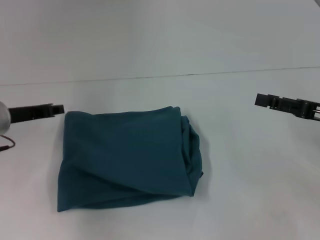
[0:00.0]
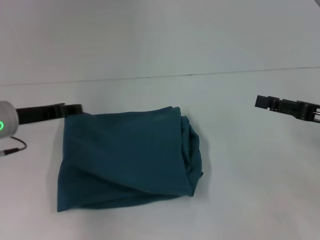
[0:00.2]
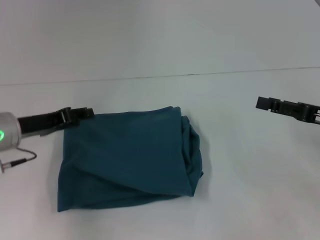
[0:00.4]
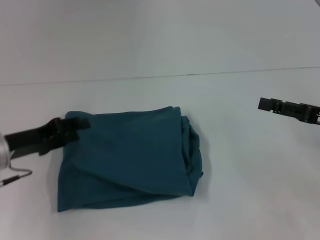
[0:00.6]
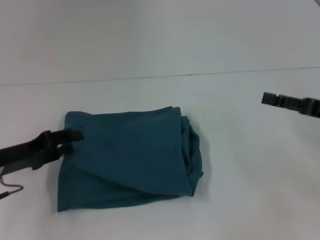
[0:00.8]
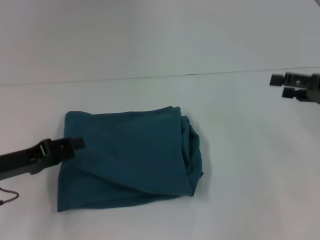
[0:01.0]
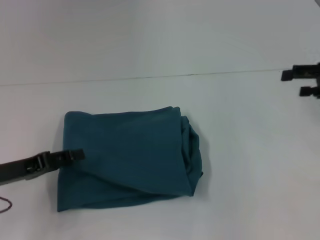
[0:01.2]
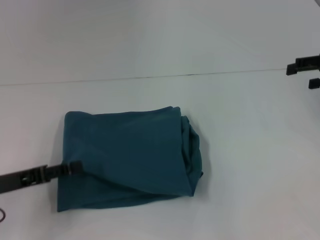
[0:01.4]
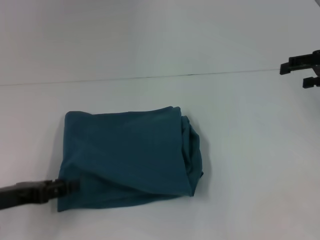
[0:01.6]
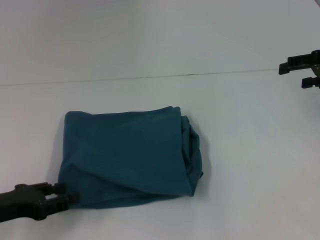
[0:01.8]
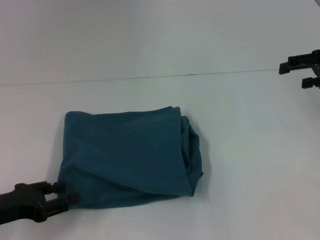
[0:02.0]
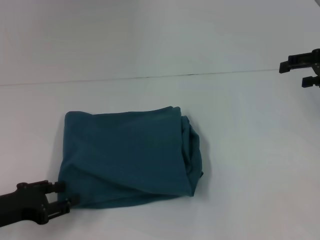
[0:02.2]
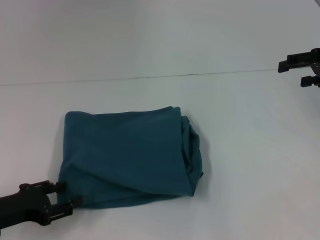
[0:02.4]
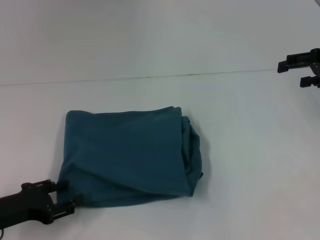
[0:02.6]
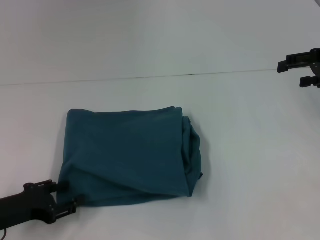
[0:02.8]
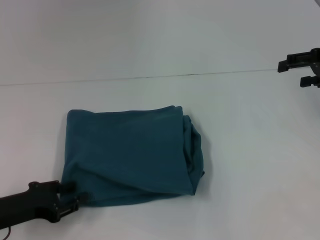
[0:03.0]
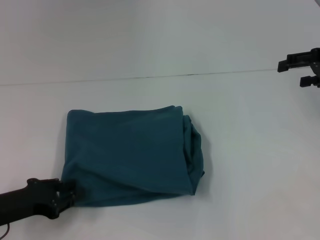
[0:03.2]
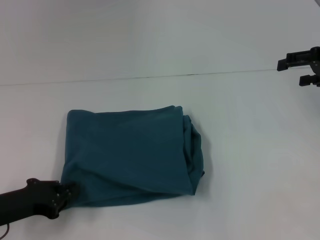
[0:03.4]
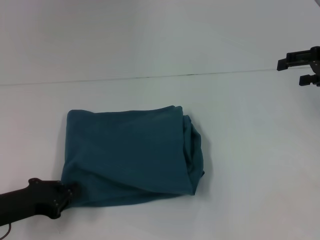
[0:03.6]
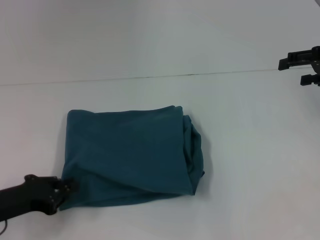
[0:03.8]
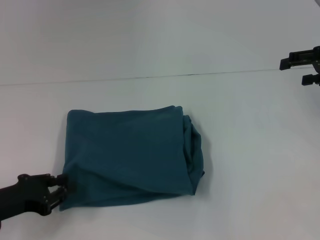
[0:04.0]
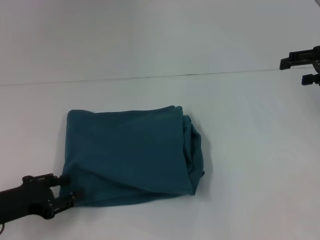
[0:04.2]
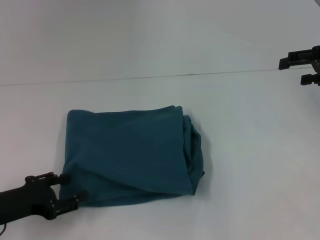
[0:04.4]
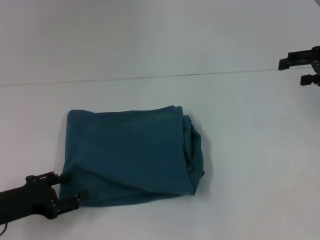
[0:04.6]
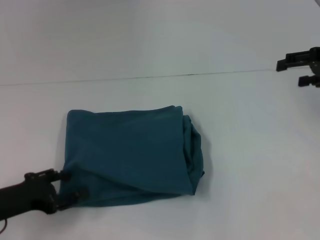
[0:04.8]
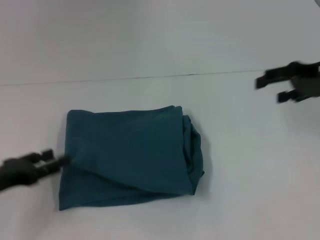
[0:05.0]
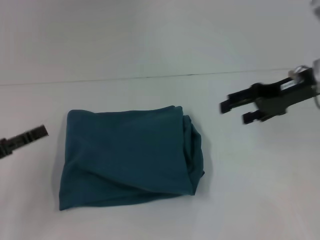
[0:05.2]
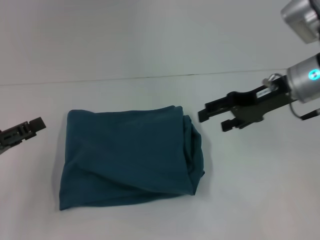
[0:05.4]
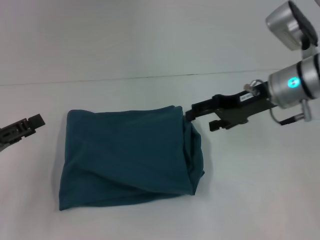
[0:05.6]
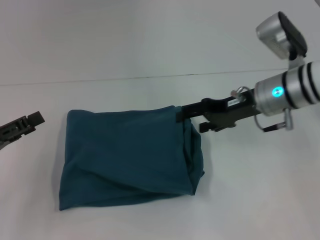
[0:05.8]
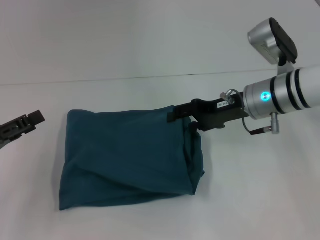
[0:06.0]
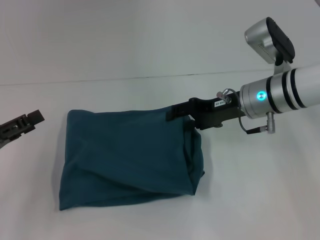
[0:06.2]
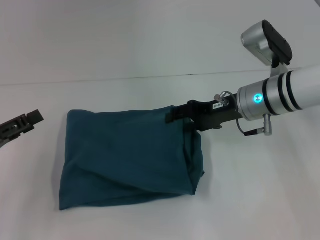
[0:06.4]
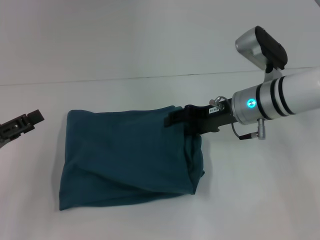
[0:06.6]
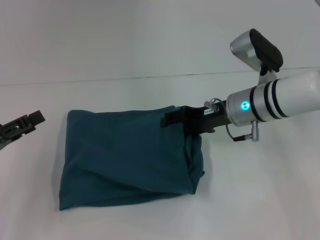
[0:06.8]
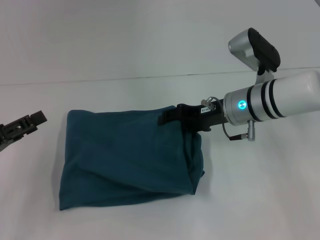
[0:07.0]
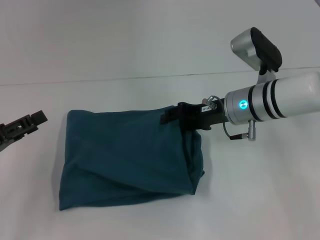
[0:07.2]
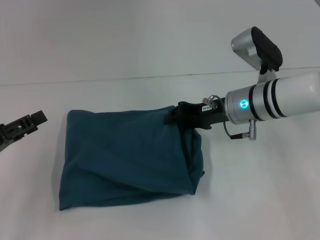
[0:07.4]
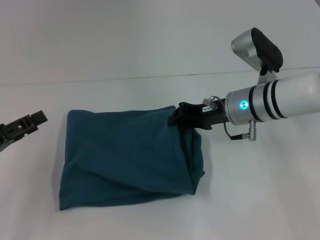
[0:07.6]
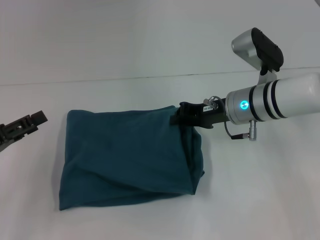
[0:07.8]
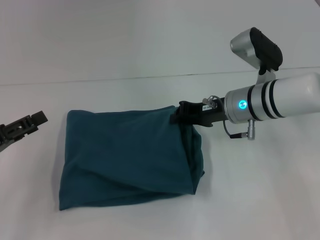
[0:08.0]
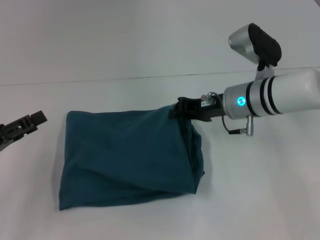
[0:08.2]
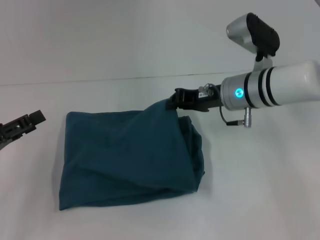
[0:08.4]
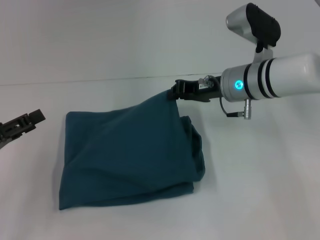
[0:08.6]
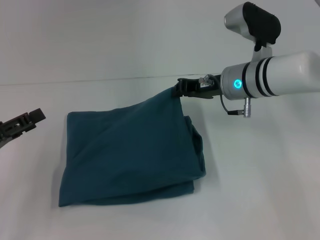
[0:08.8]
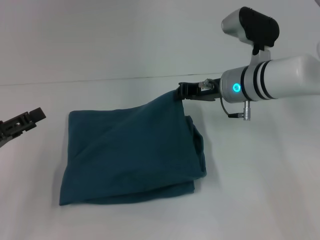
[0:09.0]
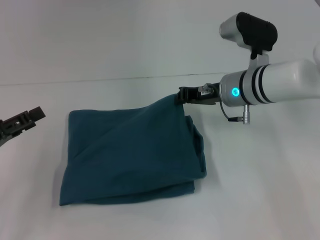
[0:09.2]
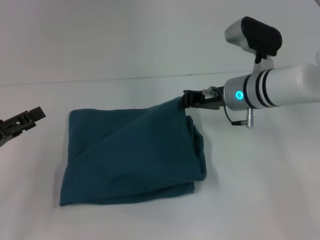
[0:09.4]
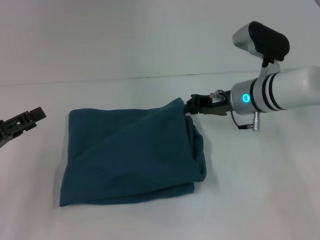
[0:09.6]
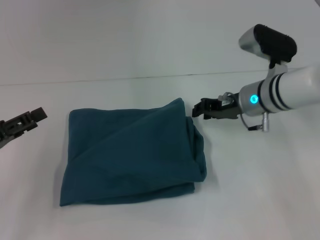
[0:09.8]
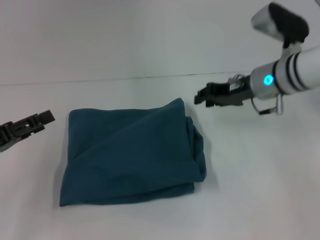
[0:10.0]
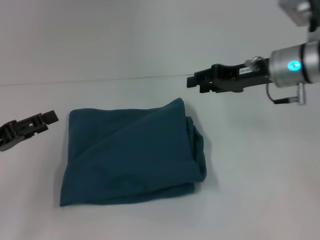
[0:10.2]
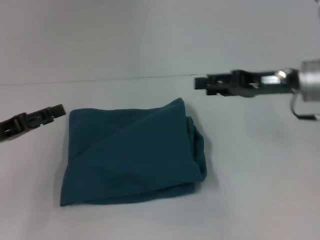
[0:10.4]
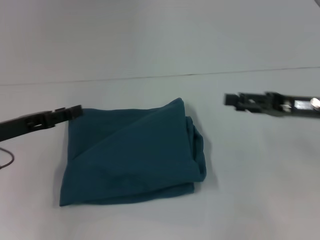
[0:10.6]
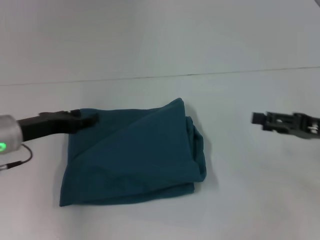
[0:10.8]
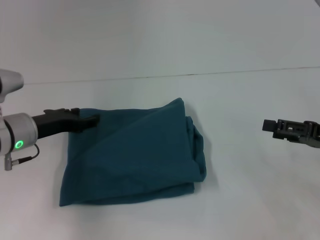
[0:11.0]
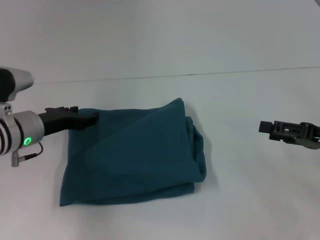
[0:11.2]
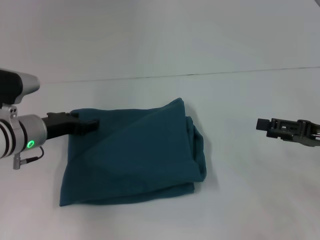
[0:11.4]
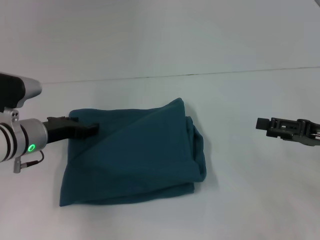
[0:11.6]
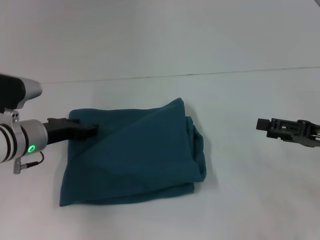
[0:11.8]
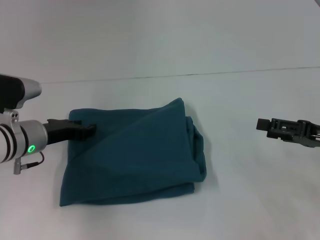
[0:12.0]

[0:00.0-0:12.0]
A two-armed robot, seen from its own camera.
0:00.0 to 0:01.6: The right gripper heads forward and upward, covering approximately 10 cm, while the left gripper shifts some 10 cm backward, and opens.
0:03.0 to 0:04.4: The left gripper closes and opens again.
0:04.4 to 0:06.0: The right gripper goes approximately 20 cm to the left and downward. Meanwhile the left gripper moves upward, about 5 cm.
0:06.0 to 0:07.6: The right gripper closes up.
0:07.6 to 0:09.0: The grippers move only a little.
0:09.0 to 0:10.4: The right gripper is displaced to the right and backward by roughly 10 cm, and opens.
0:10.4 to 0:12.0: The left gripper is displaced to the right and forward by approximately 10 cm, while the right gripper goes some 15 cm to the right, backward and downward.

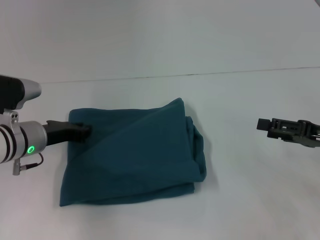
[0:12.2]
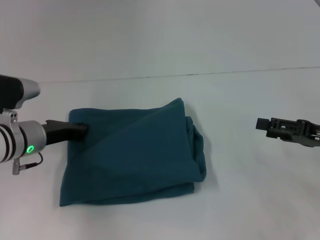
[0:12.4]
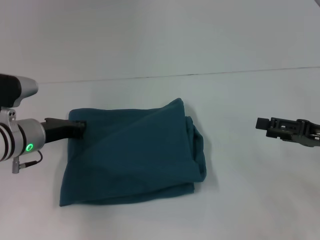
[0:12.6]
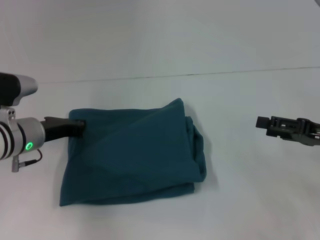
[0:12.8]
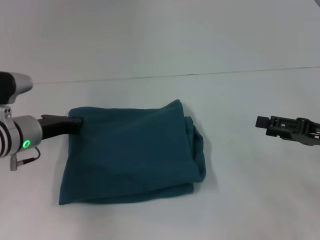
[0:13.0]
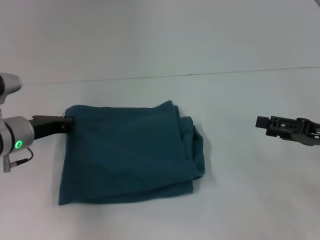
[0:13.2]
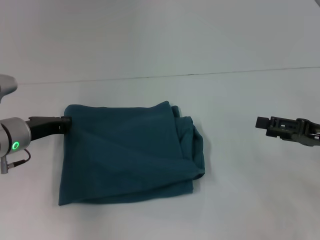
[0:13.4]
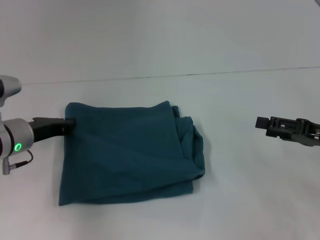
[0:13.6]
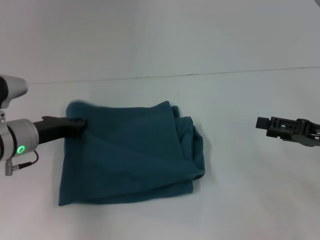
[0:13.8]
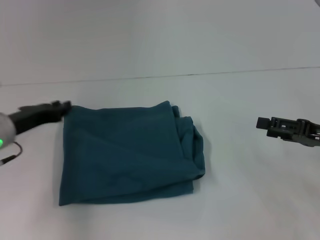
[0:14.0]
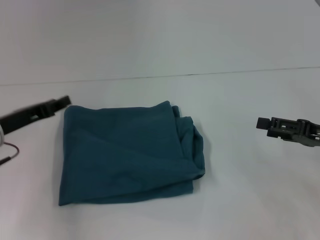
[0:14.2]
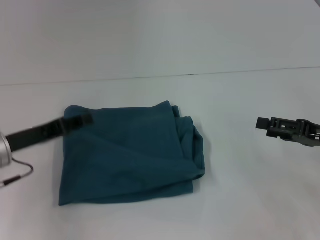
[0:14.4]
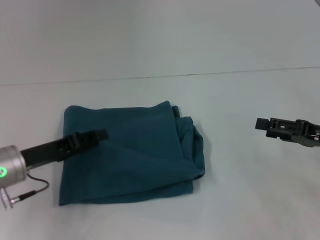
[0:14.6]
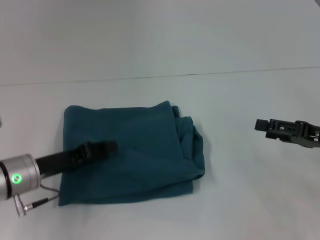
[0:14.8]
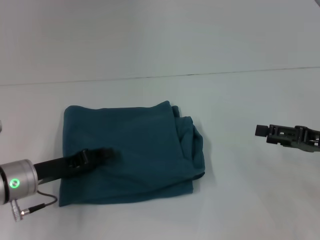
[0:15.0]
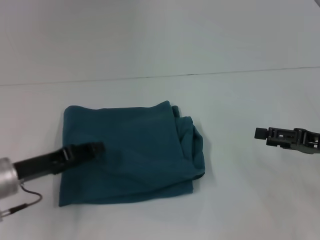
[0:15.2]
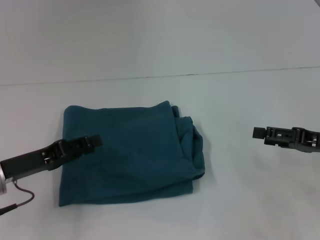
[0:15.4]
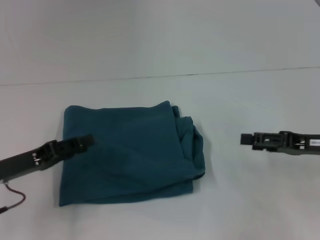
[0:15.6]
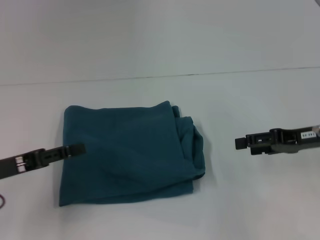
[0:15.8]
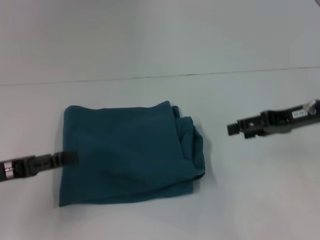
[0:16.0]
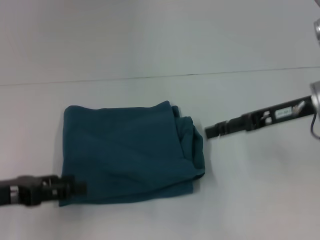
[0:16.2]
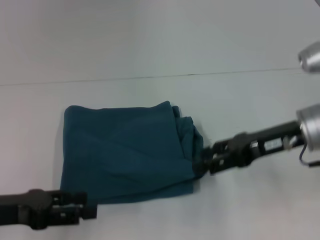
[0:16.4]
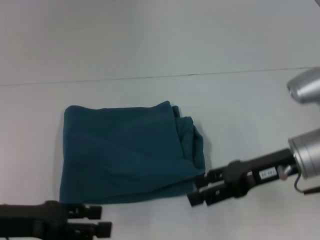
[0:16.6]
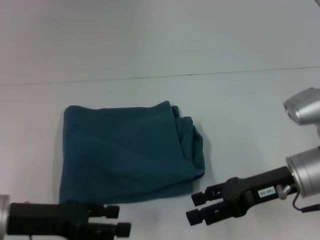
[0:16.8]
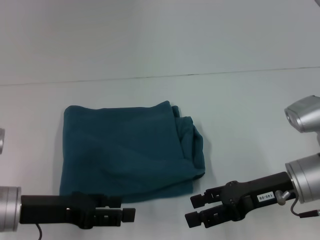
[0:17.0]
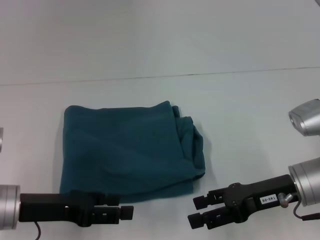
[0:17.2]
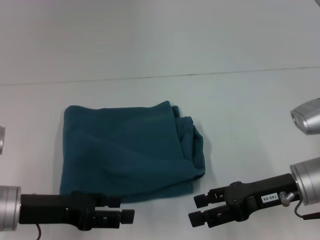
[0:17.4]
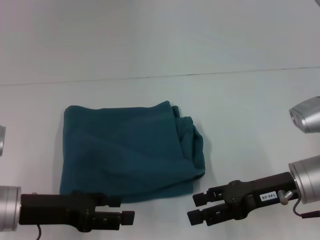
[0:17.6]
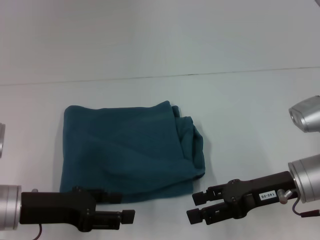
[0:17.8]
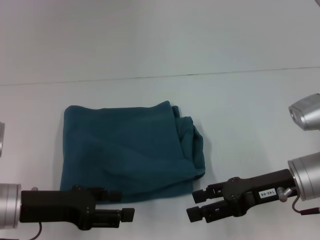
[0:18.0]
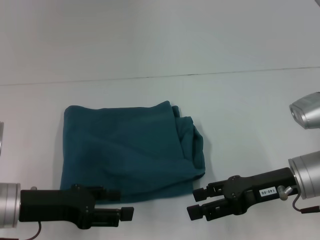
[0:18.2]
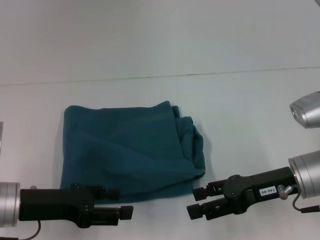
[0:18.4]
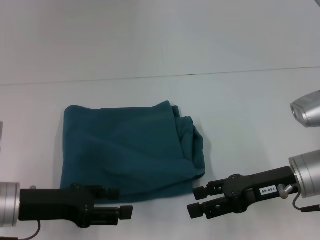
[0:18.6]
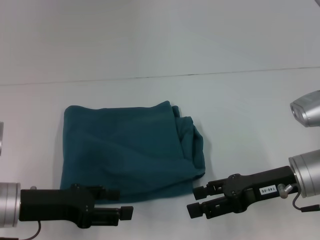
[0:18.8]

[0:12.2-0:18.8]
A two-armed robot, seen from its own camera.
0:12.2 to 0:13.8: The left gripper closes its fingers.
0:13.8 to 0:15.4: The left gripper goes roughly 10 cm backward, and opens.
0:15.4 to 0:17.2: The right gripper is displaced to the left by approximately 10 cm.
0:17.2 to 0:18.8: There are only small adjustments of the grippers.

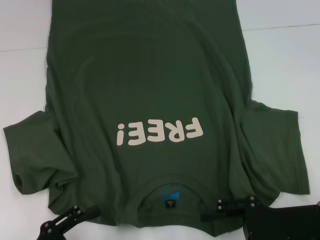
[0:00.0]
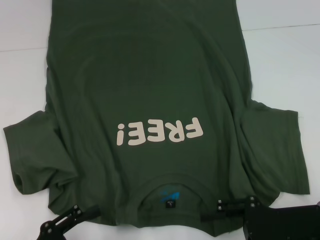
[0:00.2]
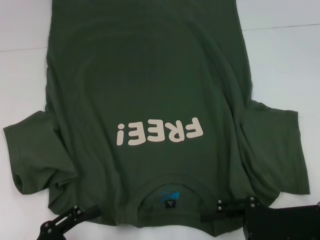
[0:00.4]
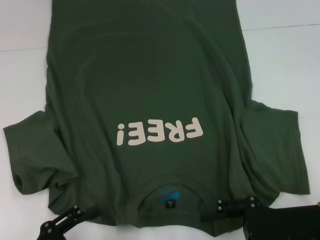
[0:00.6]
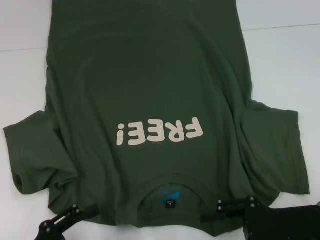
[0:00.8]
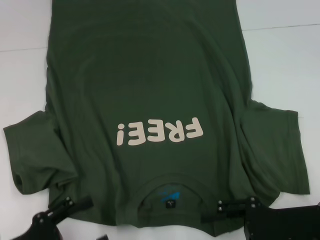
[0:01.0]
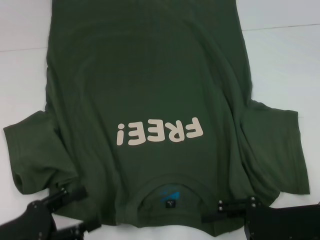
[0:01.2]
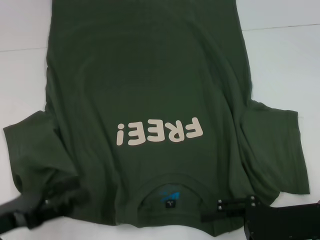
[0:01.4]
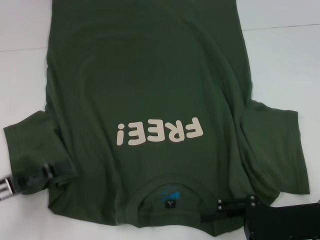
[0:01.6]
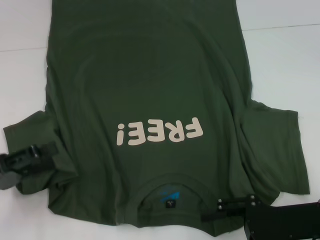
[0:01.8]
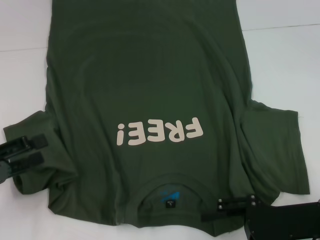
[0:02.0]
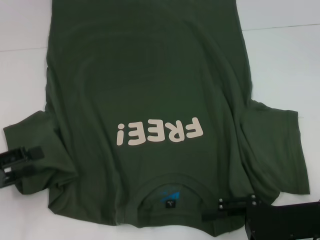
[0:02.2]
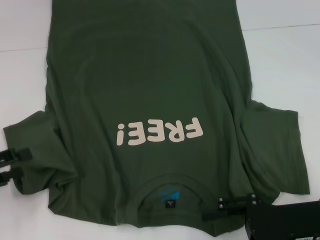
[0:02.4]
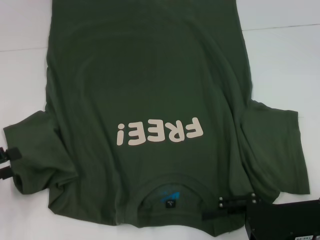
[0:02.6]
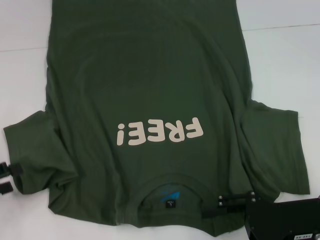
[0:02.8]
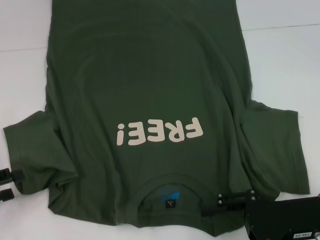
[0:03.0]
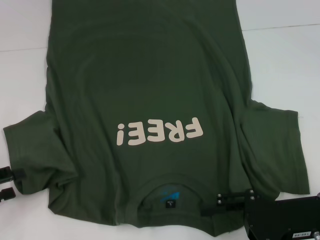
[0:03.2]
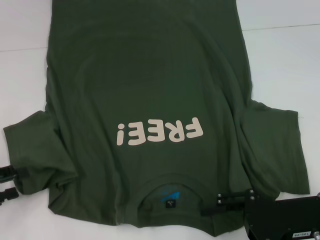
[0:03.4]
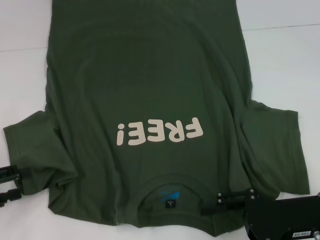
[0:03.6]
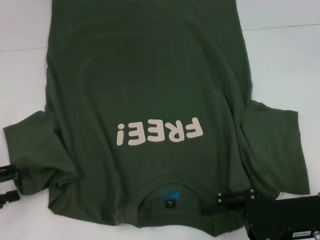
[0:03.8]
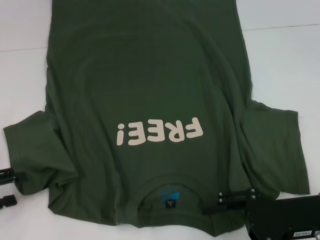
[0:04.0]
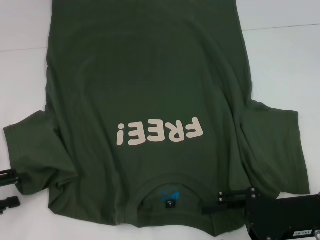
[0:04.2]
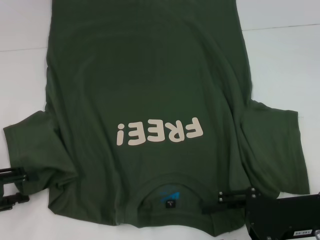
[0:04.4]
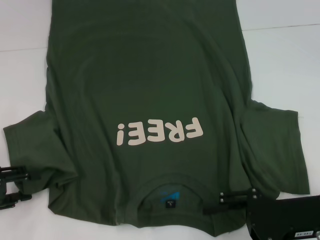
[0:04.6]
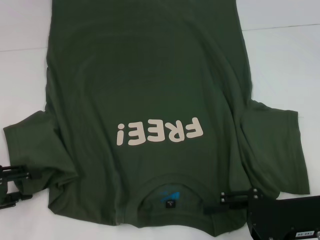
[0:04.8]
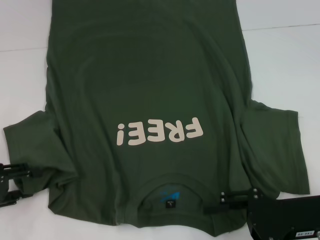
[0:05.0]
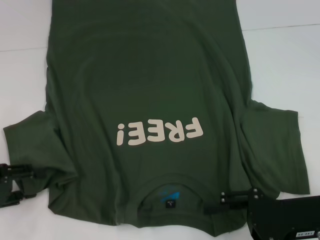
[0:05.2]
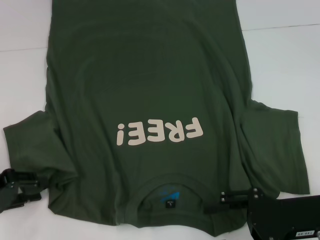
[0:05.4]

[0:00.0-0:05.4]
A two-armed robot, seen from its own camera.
0:00.0 to 0:01.4: The left gripper goes about 5 cm forward.
0:01.4 to 0:02.8: The left gripper heads to the left, covering some 10 cm.
0:02.8 to 0:05.4: The grippers move only a little.
